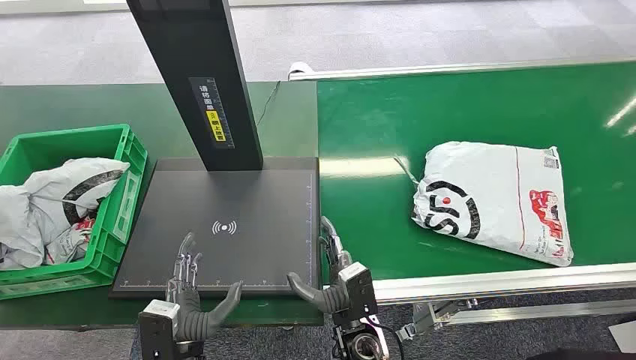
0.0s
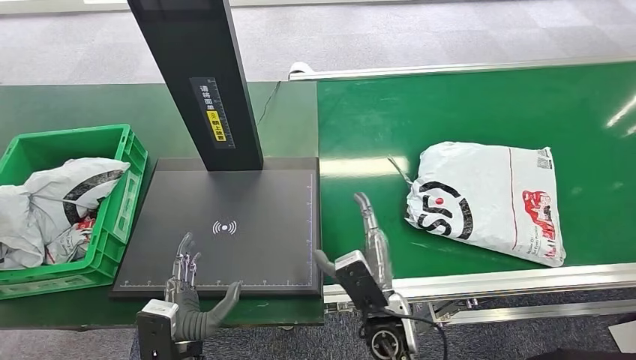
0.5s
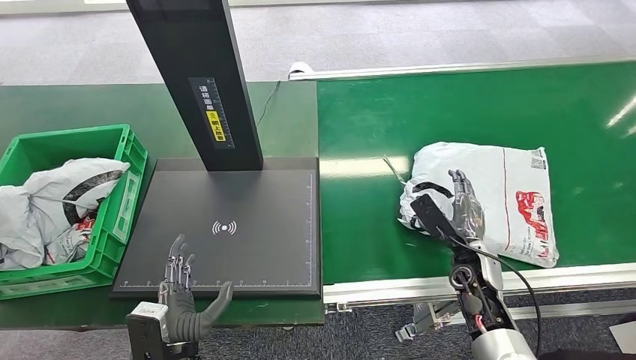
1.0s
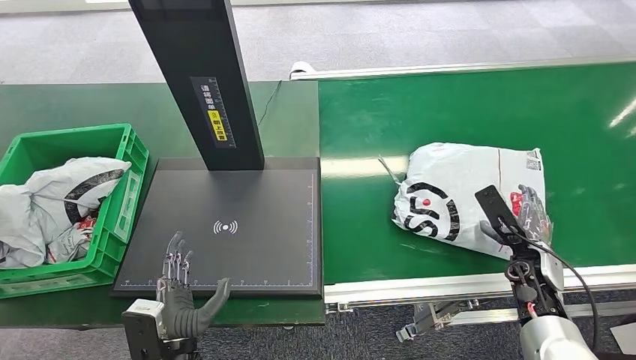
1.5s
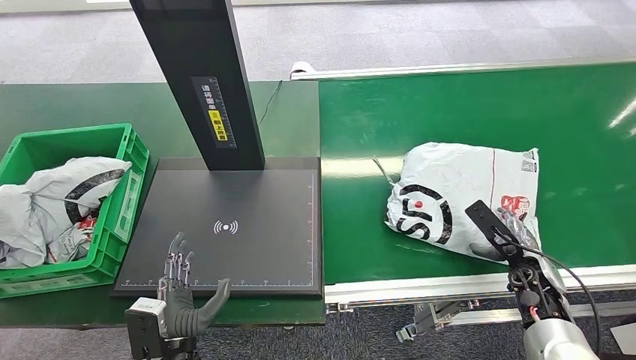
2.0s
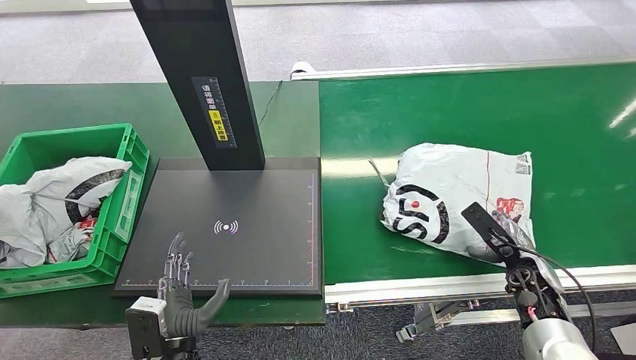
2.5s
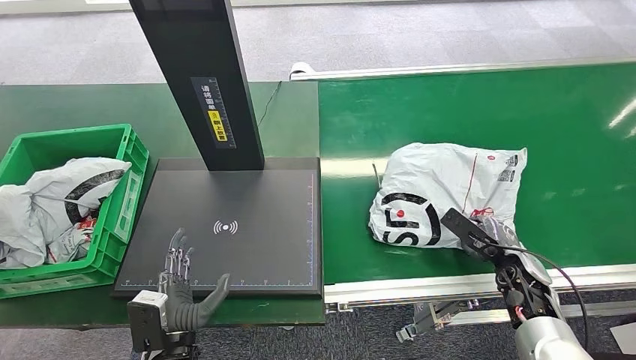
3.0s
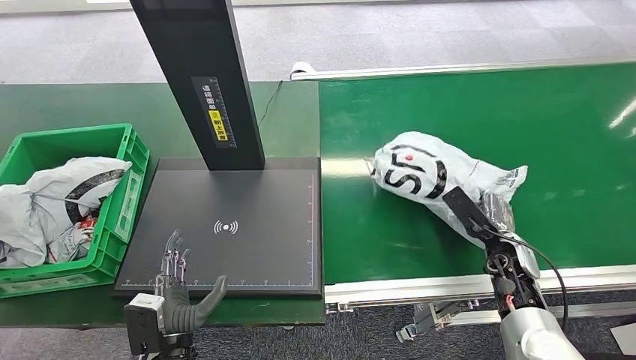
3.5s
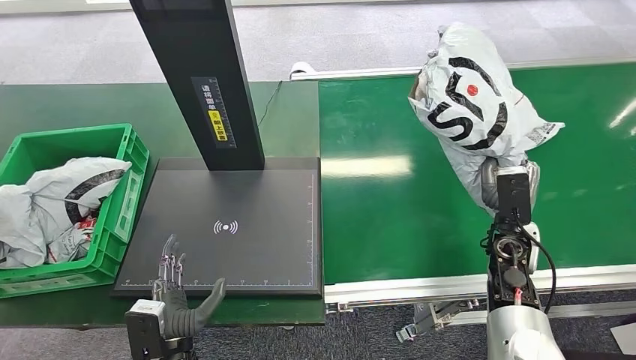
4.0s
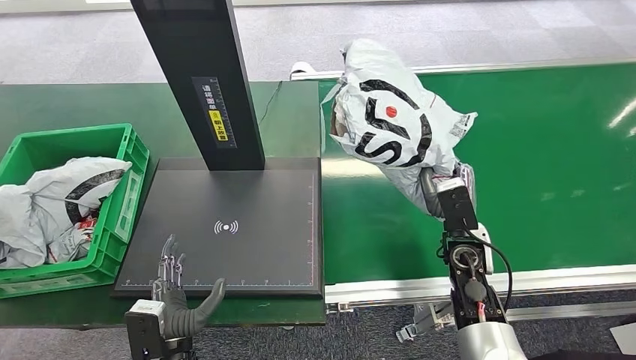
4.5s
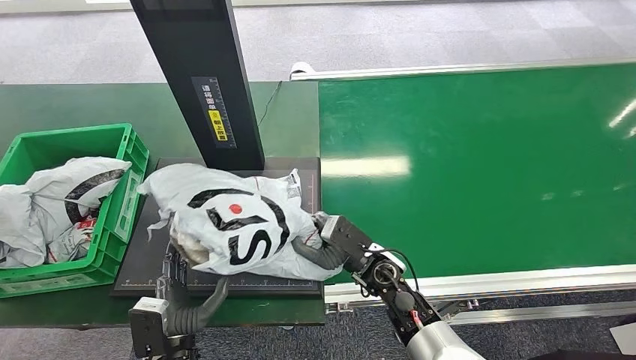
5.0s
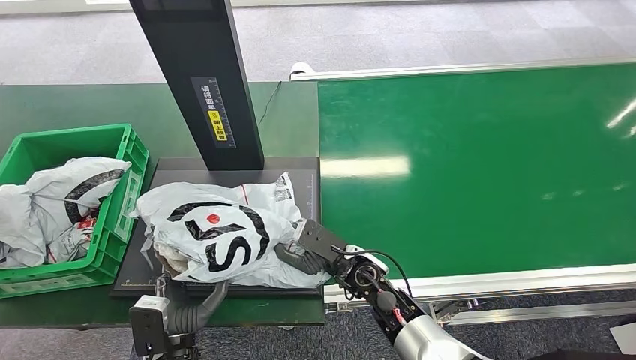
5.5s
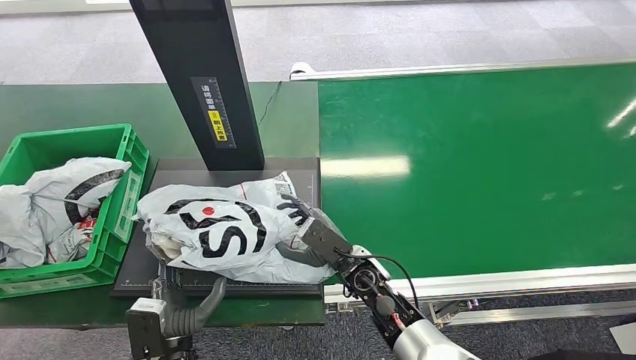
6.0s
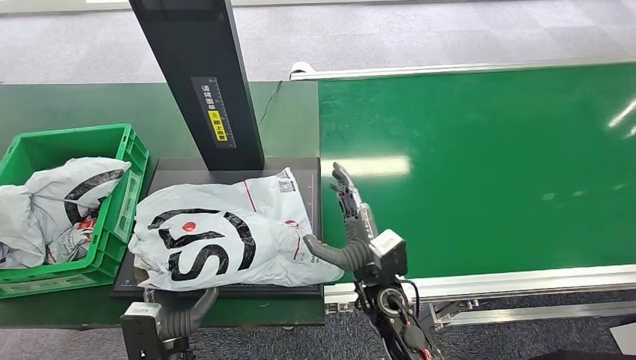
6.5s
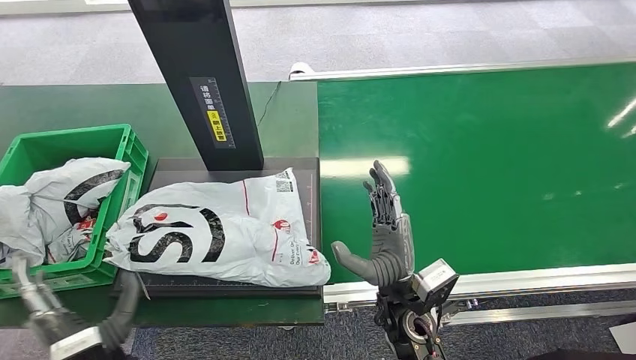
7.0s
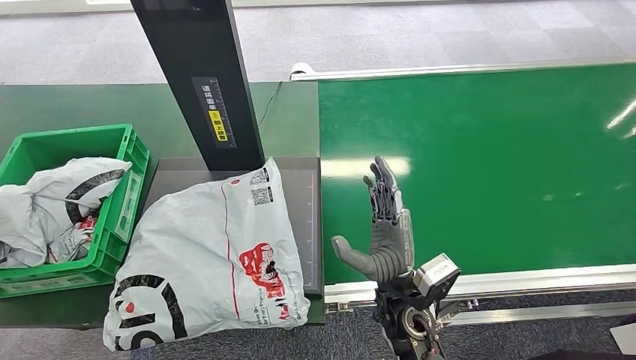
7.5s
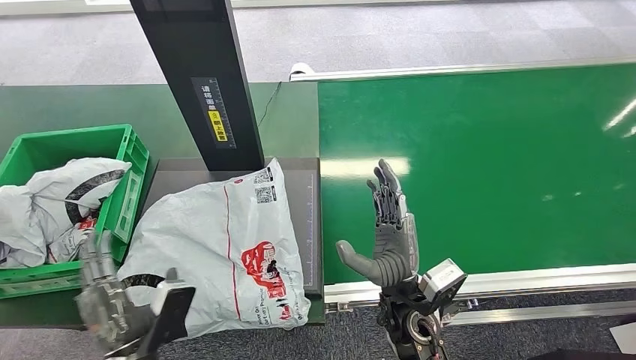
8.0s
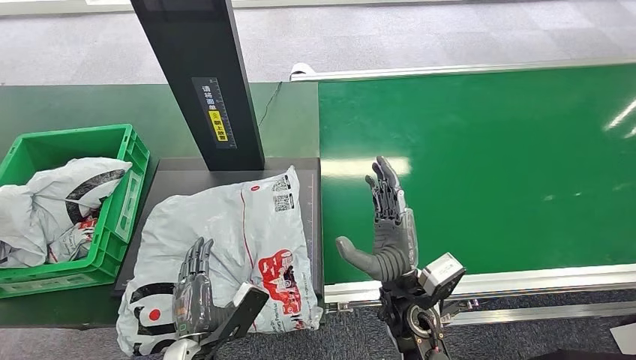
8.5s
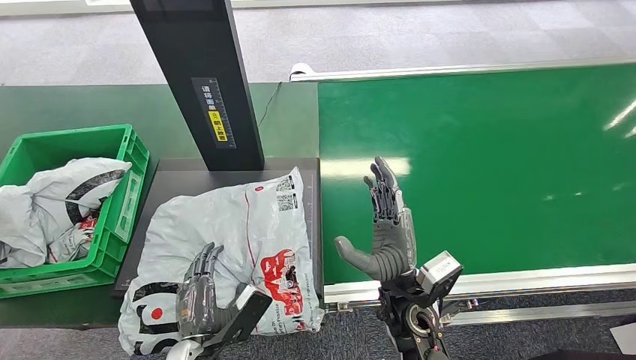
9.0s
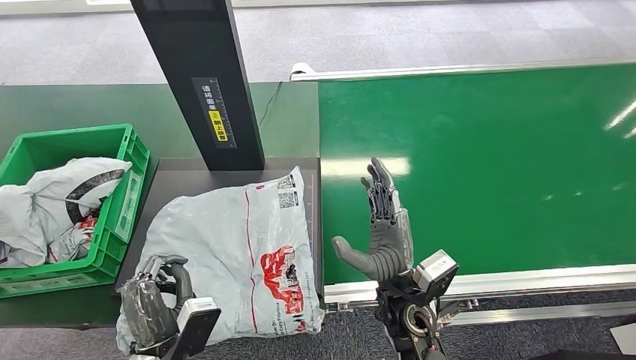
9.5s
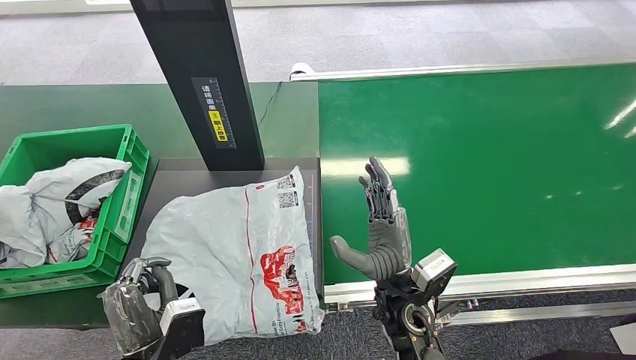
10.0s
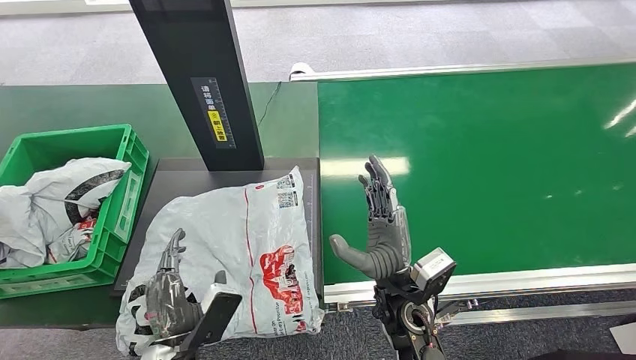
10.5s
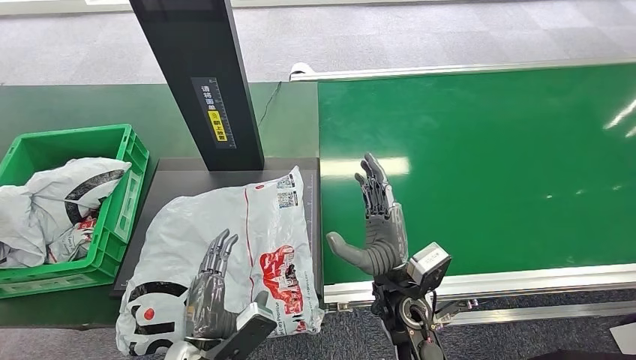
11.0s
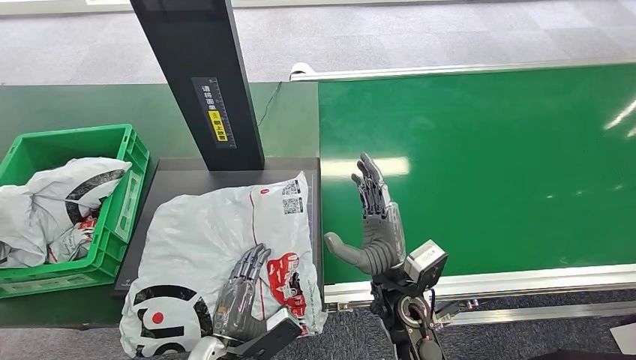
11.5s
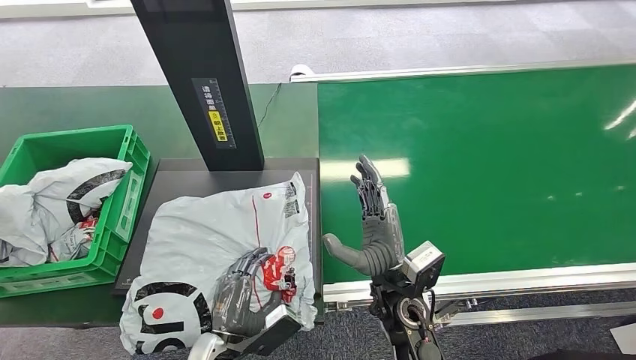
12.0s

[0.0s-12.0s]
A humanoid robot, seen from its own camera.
Step, 0.0s to 4.0s: Pick up the package from the conveyor belt.
Step, 4.5s to 7.0s: Place the package onto the inbound machine.
2.0s to 4.0s: The right hand heads to the left, forward and upward, covering approximately 10 cm.
6.0s to 8.0s: The left hand travels upward by roughly 5 cm, and travels to the left and back again, roughly 15 cm each way, while the right hand shifts some 10 cm backward and upward.
10.0s to 12.0s: The left hand is displaced downward and to the right by approximately 10 cm.

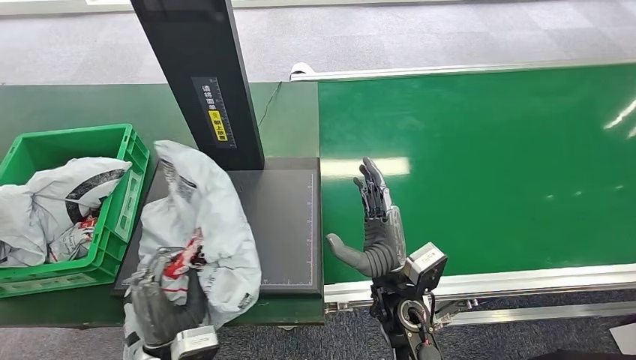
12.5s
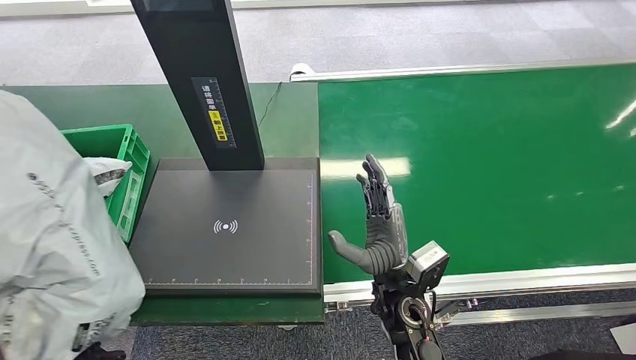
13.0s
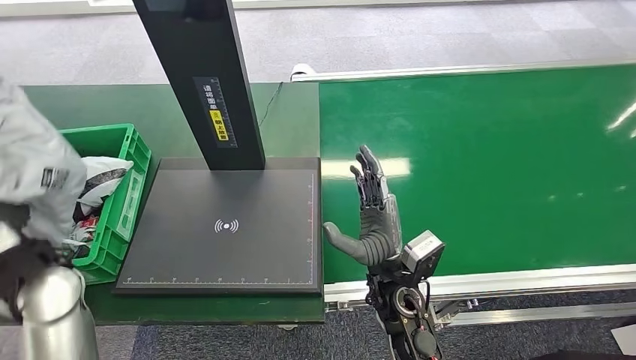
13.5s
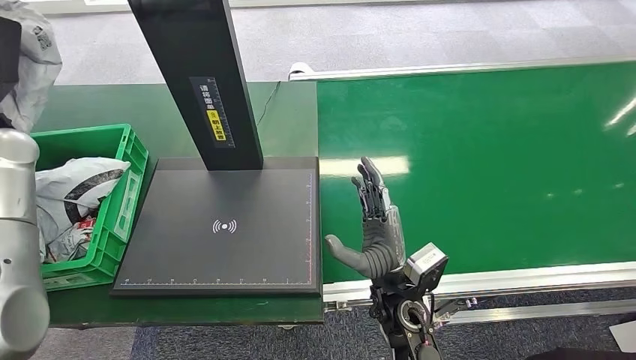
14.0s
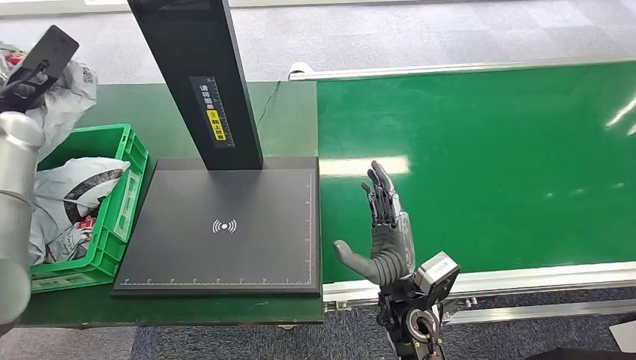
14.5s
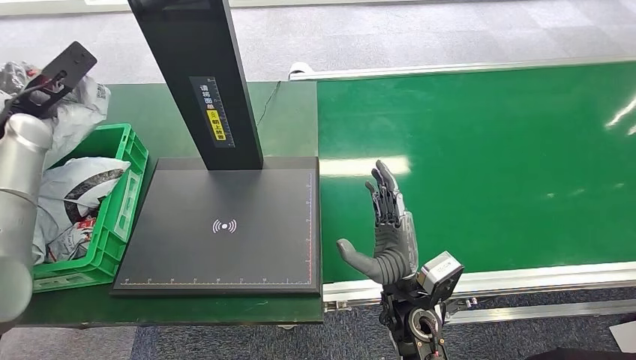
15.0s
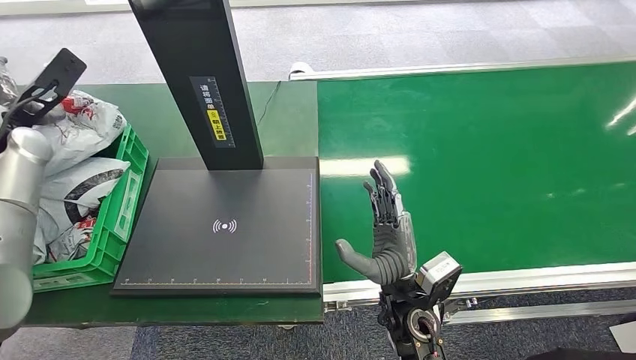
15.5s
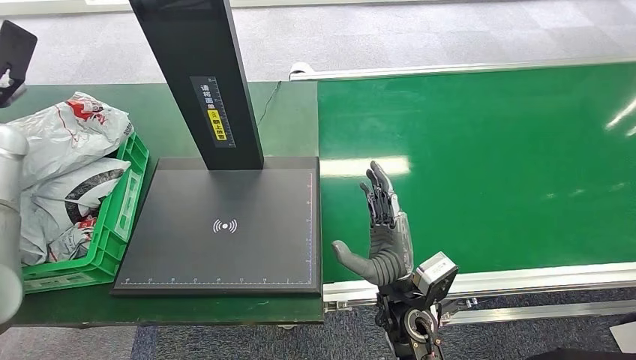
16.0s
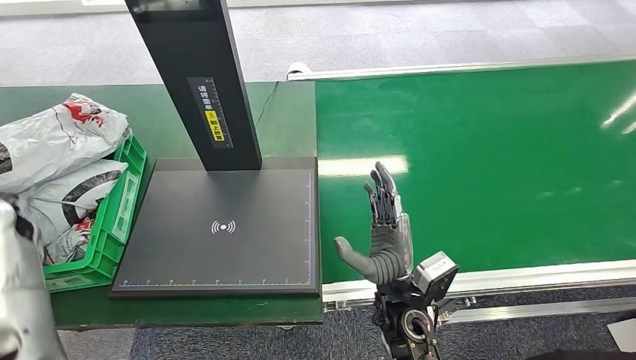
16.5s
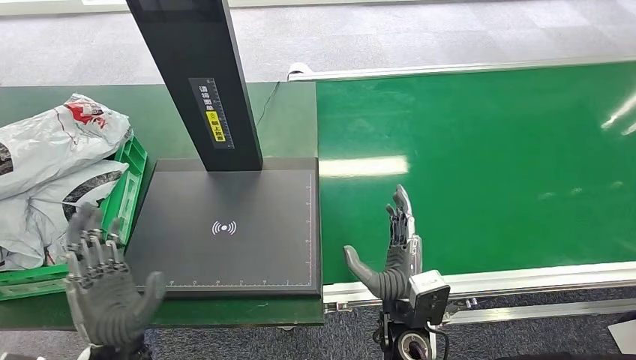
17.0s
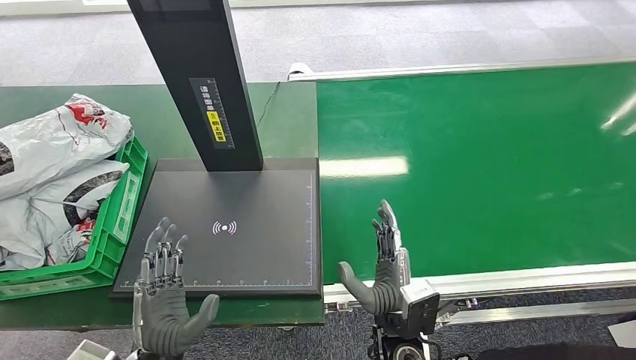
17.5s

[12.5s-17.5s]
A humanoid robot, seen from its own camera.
Step, 13.5s to 17.5s: Place the package into the parcel locker.
15.0s to 17.5s: The right hand is displaced backward by about 5 cm, while the left hand goes some 50 cm backward, downward and to the right.
